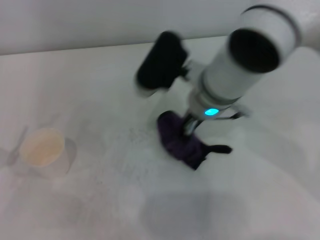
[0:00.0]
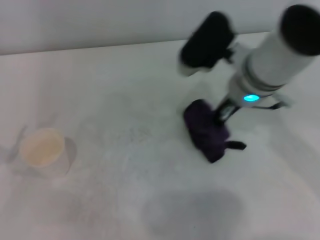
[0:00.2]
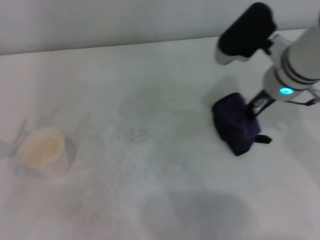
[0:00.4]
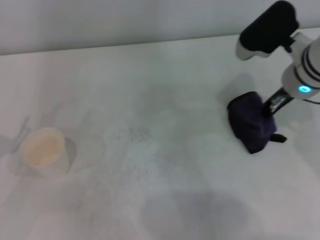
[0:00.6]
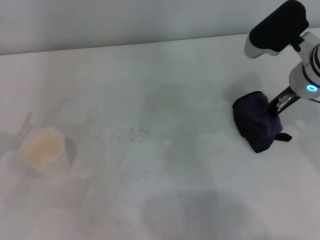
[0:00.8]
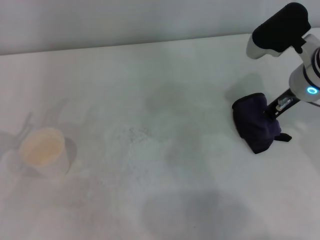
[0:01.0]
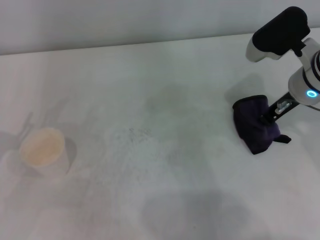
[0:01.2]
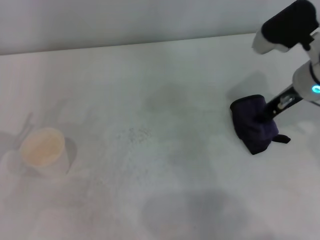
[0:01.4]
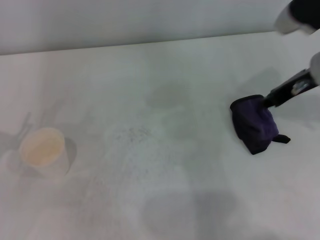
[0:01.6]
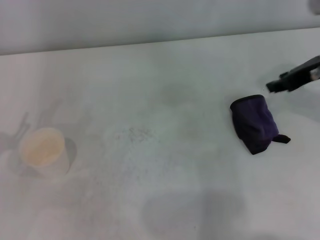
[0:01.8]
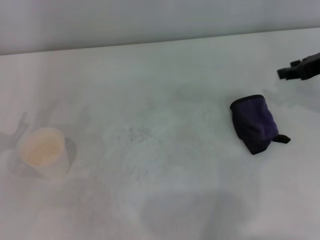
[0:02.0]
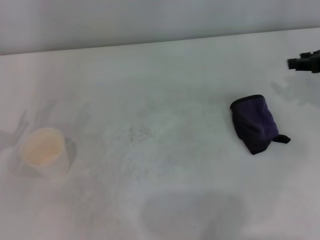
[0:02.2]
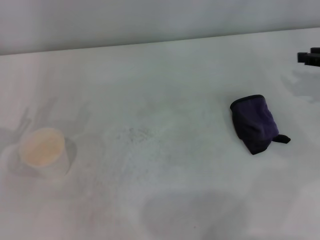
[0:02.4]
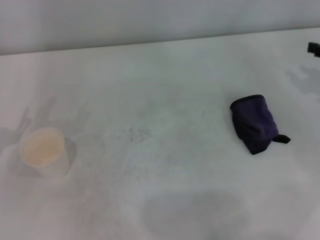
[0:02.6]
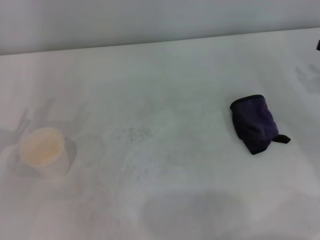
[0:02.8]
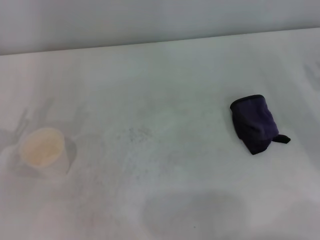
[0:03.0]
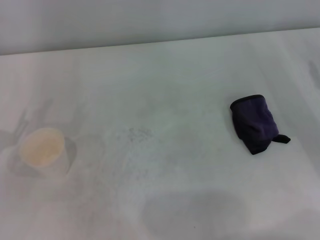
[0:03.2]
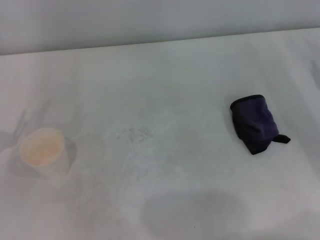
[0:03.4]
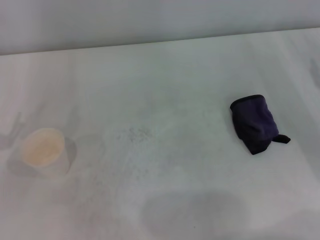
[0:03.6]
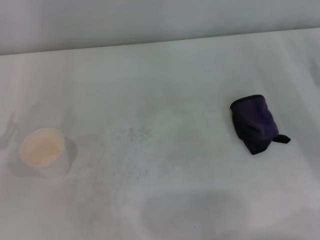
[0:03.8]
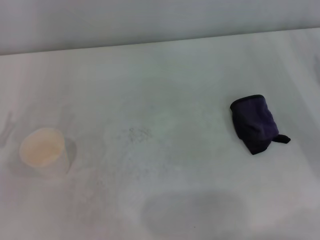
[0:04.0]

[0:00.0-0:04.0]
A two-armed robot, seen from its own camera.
Step, 0:00.6 to 0:01.2: Place the rag on the table with the right gripper.
0:00.0 to 0:01.4: The right gripper shifts some 15 cm to the right.
0:01.4 to 0:02.6: The right gripper goes approximately 15 cm to the right, and opens its fingers.

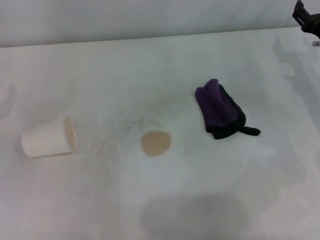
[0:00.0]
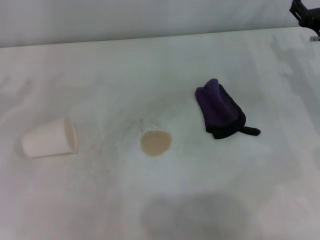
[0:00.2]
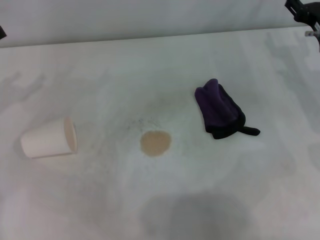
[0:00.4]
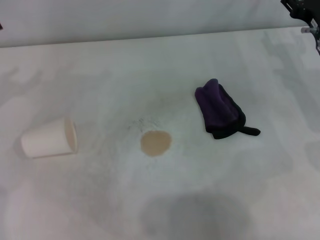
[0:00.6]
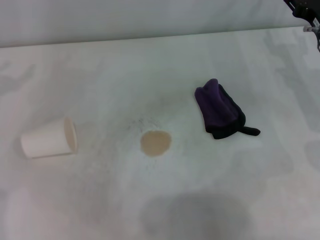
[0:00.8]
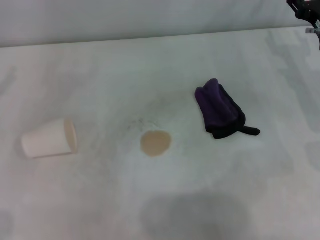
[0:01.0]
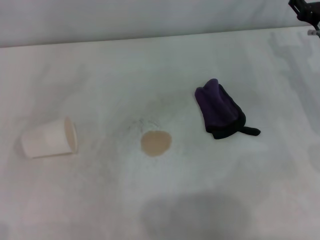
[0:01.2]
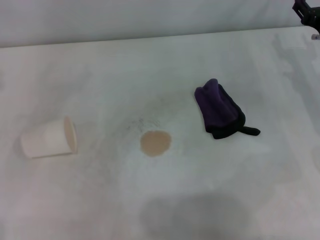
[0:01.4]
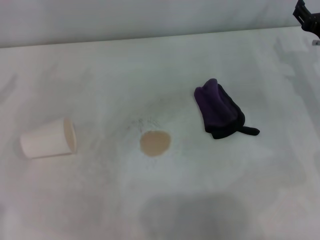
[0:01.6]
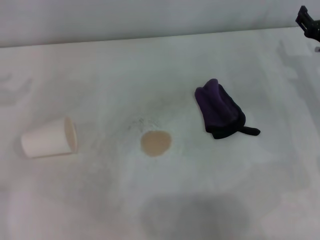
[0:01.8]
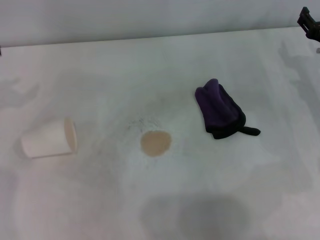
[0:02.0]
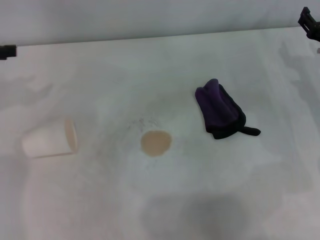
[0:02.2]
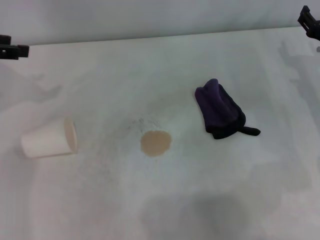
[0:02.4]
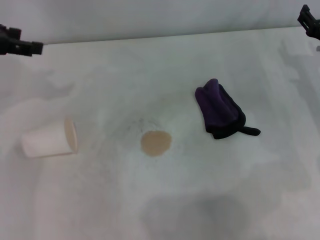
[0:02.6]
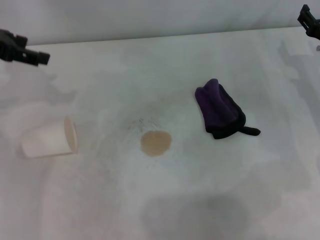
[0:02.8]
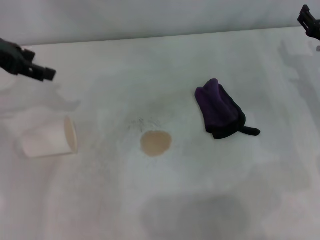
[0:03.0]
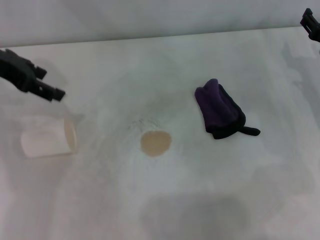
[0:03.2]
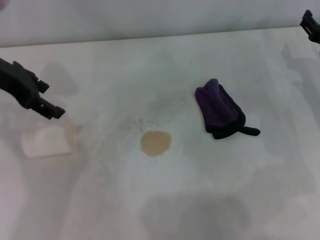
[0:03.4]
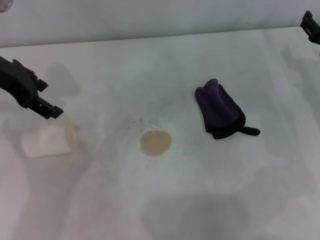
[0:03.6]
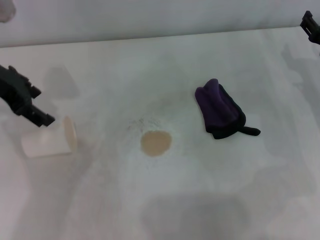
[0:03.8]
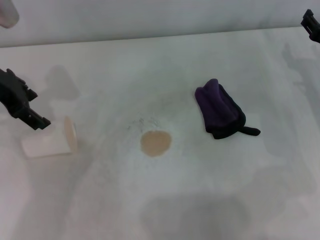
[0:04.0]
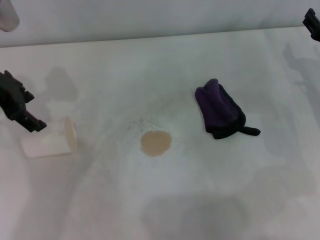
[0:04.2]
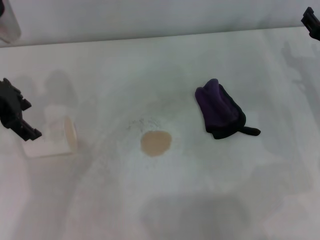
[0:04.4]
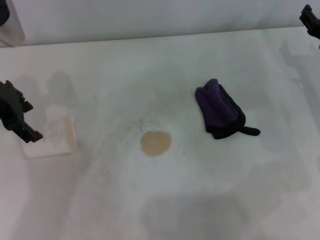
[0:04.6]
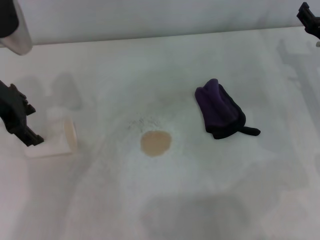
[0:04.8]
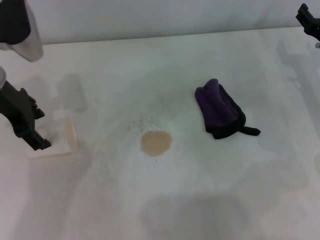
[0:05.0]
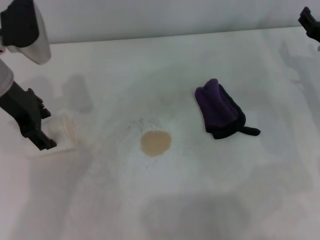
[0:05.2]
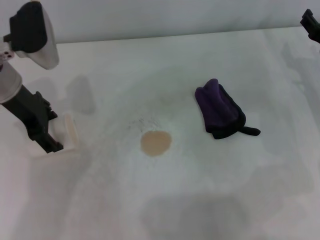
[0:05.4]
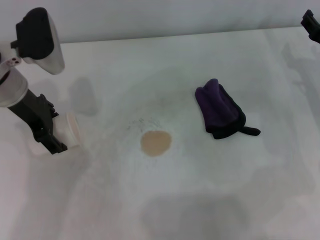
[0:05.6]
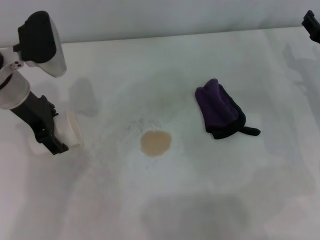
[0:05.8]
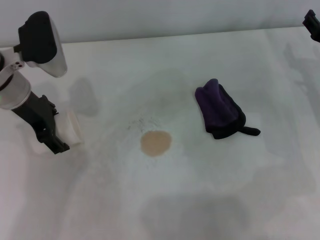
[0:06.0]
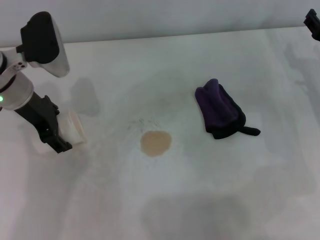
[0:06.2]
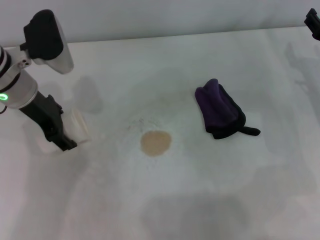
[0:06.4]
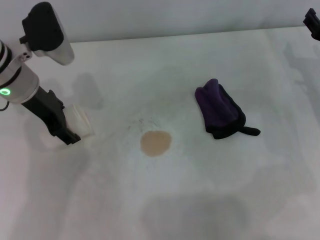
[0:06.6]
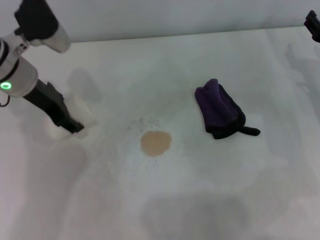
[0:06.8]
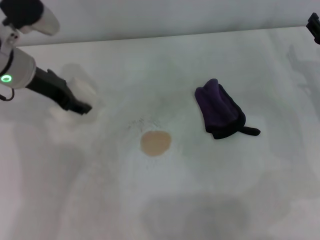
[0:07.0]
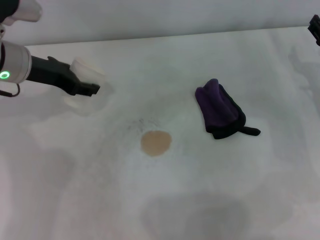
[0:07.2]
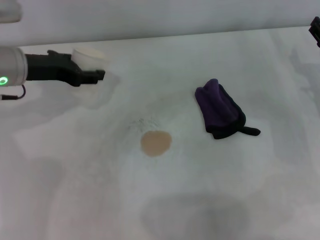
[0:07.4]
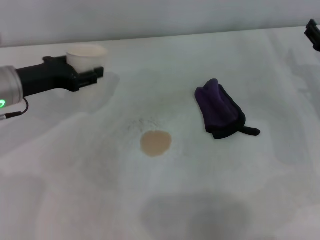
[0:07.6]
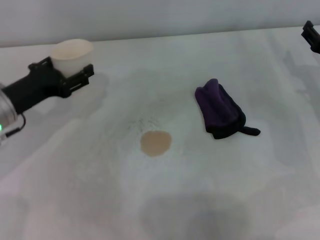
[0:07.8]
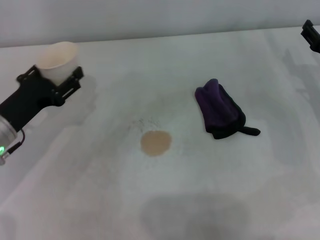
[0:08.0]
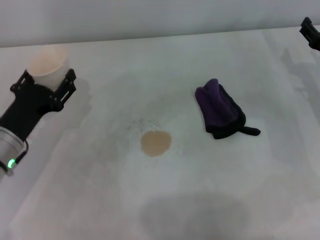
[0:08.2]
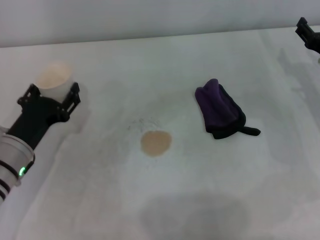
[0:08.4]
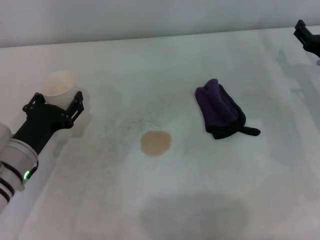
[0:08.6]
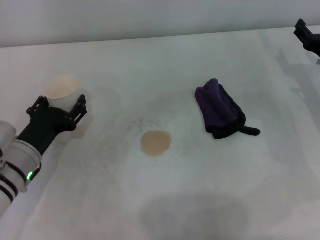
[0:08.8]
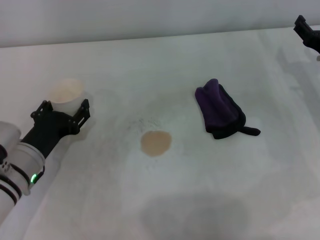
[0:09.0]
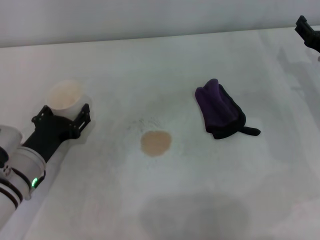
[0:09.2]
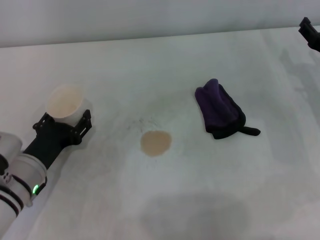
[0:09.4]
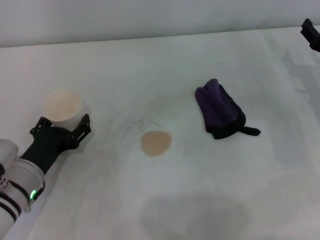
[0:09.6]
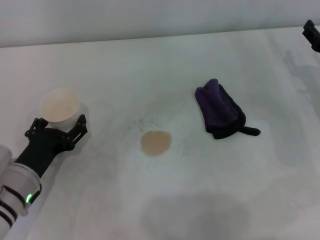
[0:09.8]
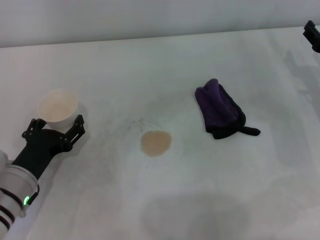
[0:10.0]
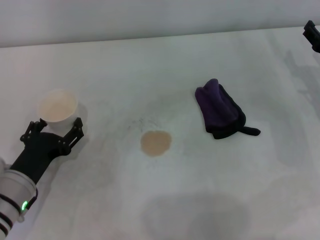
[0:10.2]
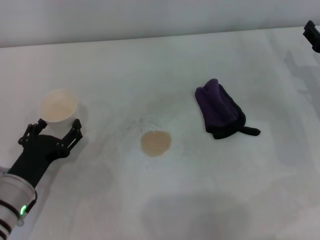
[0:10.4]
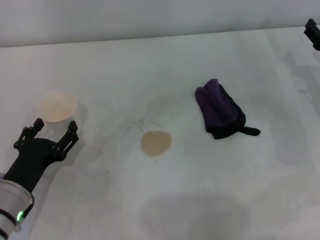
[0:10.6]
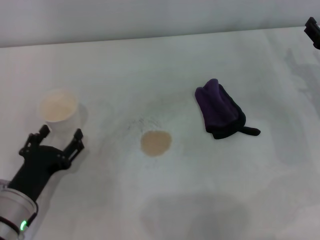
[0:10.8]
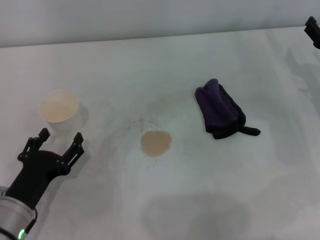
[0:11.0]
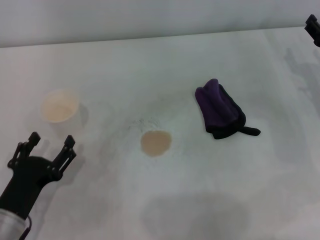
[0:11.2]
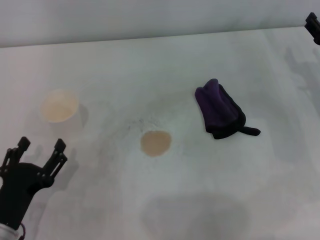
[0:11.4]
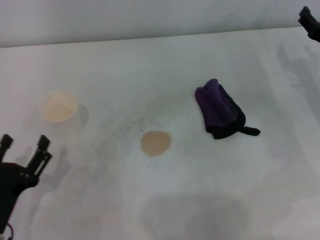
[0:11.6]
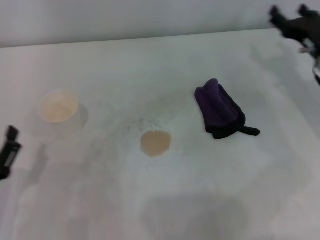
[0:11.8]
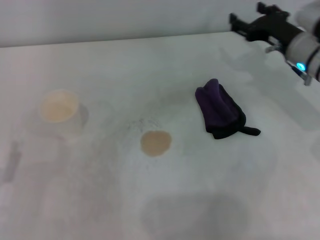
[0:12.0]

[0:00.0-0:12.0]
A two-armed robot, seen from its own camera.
Step, 0:00.0 to 0:06.2: Grasp the paper cup with the left gripper.
Step, 0:06.6 to 0:09.8: Stand the paper cup upright with the left gripper.
0:01.6 to 0:03.0: The left gripper goes roughly 15 cm to the right, upward and forward, and closes, then opens again.
0:04.4 to 0:06.0: The left gripper heads downward, covering some 5 cm.
0:06.0 to 0:07.6: The left gripper moves about 5 cm, and closes its fingers.
0:07.6 to 0:09.0: The left gripper travels downward and backward by roughly 15 cm, and opens.
0:09.0 to 0:10.4: The left gripper ends up approximately 5 cm from where it was, and opens its fingers.
0:10.4 to 0:12.0: The left gripper travels backward and to the left by approximately 10 cm; the right gripper moves to the left and forward, roughly 10 cm.

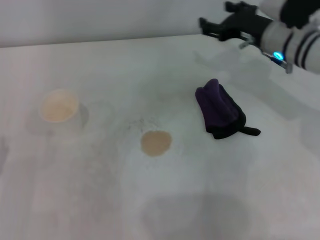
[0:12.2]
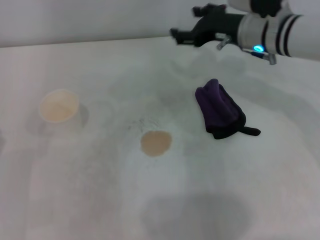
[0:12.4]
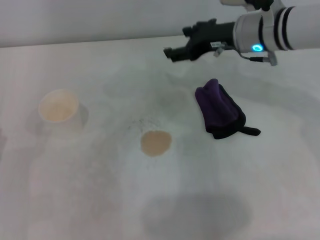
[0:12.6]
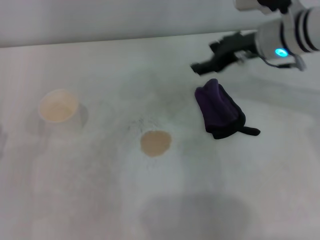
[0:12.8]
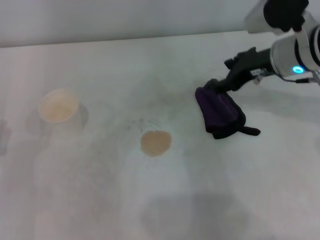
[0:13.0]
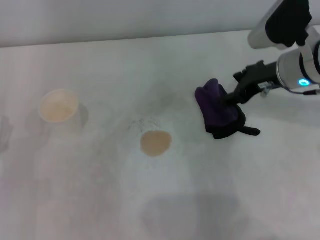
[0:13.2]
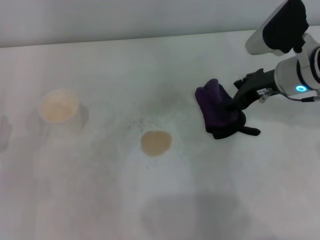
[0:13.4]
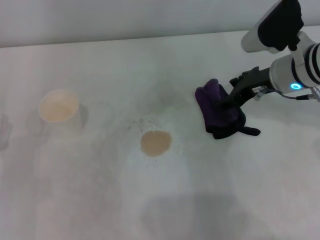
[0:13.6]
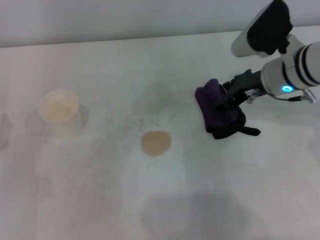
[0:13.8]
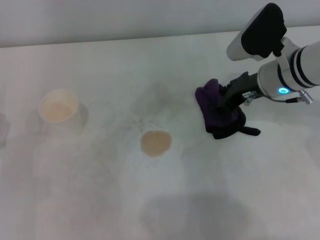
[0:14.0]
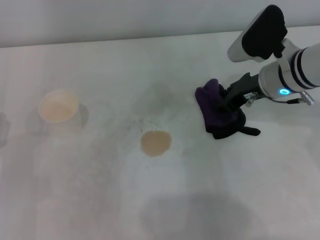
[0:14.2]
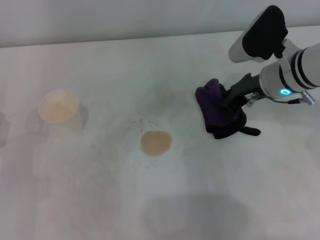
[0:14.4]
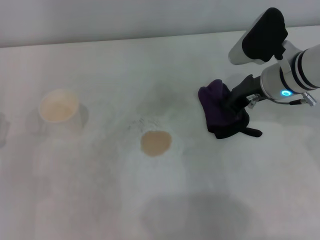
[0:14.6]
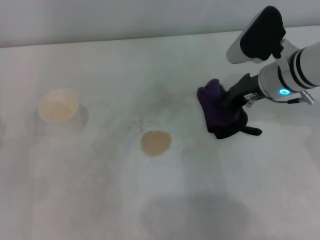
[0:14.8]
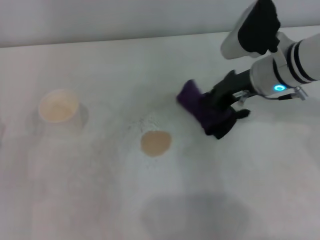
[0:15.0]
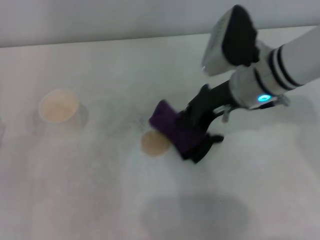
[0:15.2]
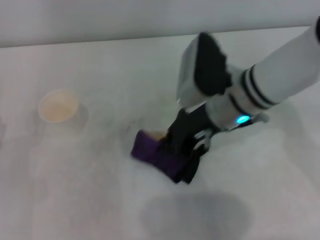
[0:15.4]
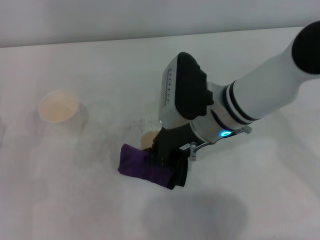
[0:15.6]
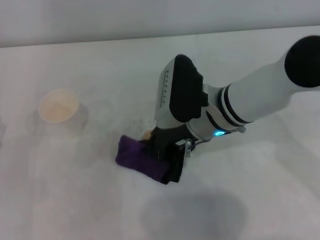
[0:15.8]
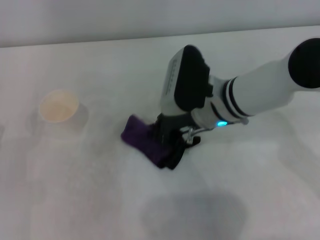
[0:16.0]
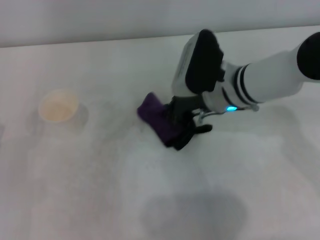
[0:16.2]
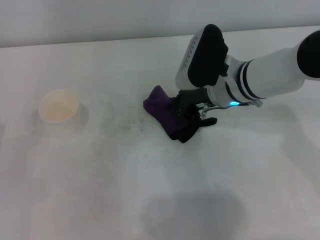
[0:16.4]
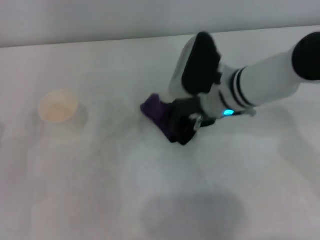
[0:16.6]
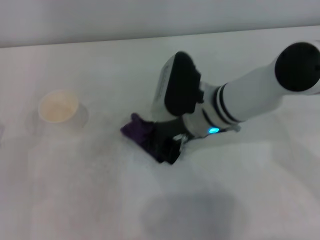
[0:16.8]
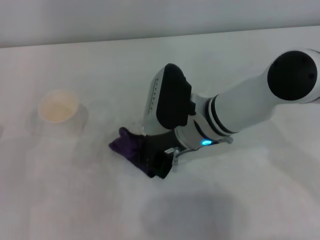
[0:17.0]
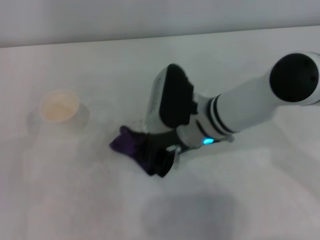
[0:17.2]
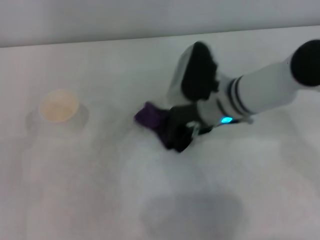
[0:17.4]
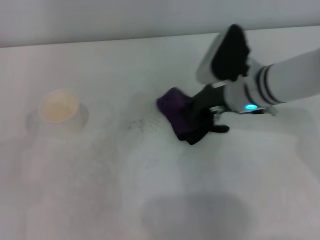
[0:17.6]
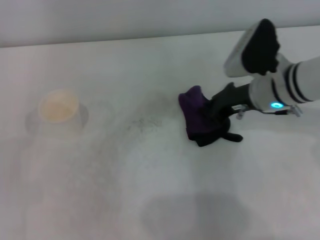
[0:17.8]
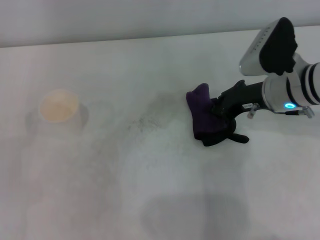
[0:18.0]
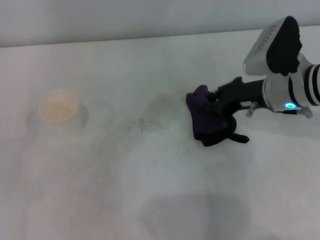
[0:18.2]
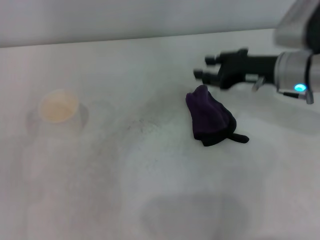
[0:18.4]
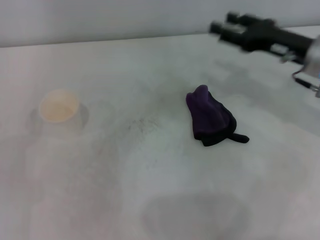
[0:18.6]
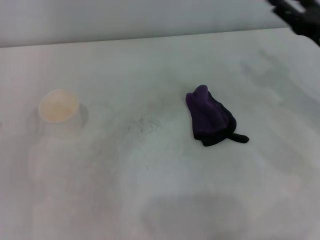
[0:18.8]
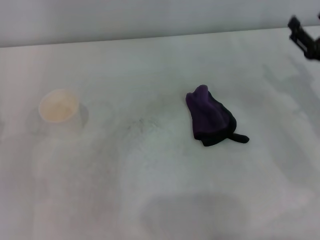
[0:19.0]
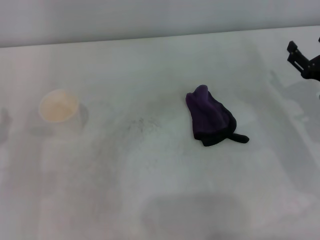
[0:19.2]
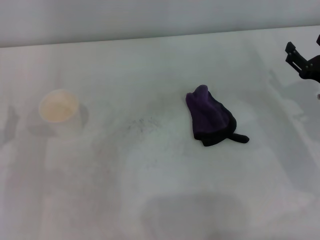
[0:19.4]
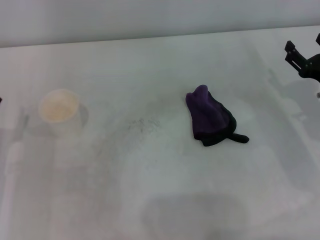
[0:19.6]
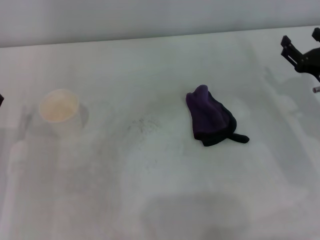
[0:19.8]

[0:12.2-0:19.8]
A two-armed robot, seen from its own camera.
Step, 0:12.2 to 0:14.6: Grasp the rag with the right gripper.
Step, 0:14.8 to 0:17.2: Wipe the stains off the table with the right gripper.
Step, 0:17.4 to 0:18.0: Place the rag on the table with the right gripper.
0:13.8 to 0:15.2: The right gripper heads to the left, covering about 5 cm, and closes up.
0:15.2 to 0:16.8: The right gripper moves left and right over about 5 cm, changing direction 2 times.
0:16.8 to 0:18.2: The right gripper is displaced to the right by about 10 cm.
0:18.2 to 0:19.8: The right gripper heads to the right and downward, covering some 10 cm, and opens its fingers.
